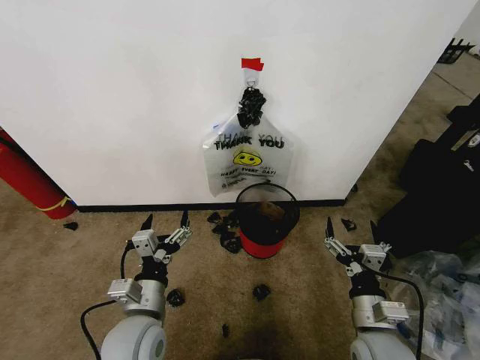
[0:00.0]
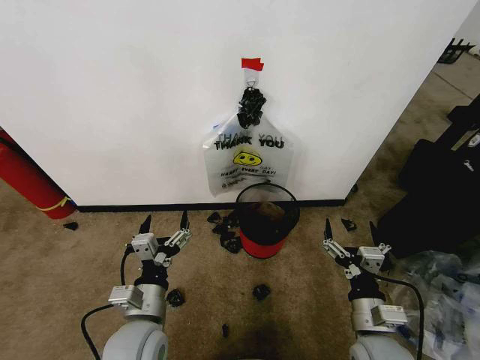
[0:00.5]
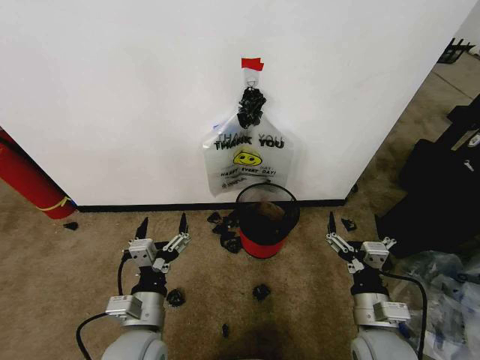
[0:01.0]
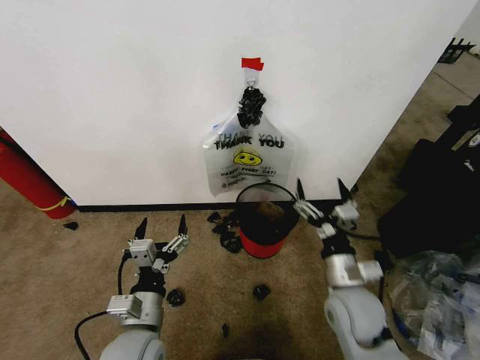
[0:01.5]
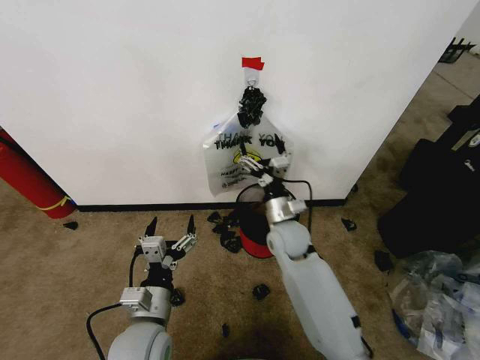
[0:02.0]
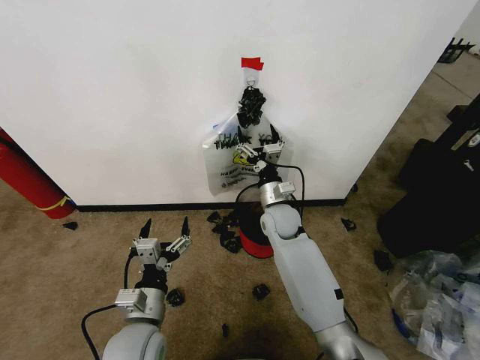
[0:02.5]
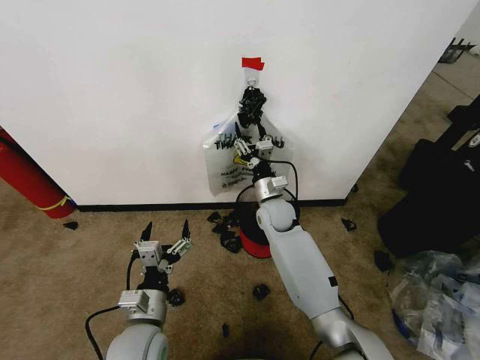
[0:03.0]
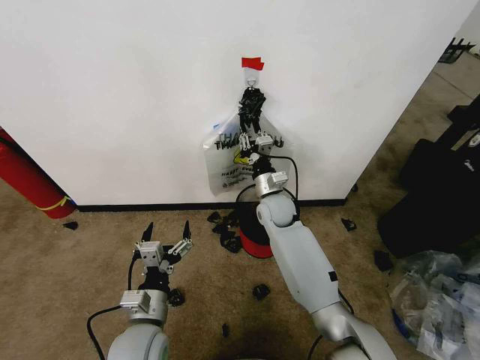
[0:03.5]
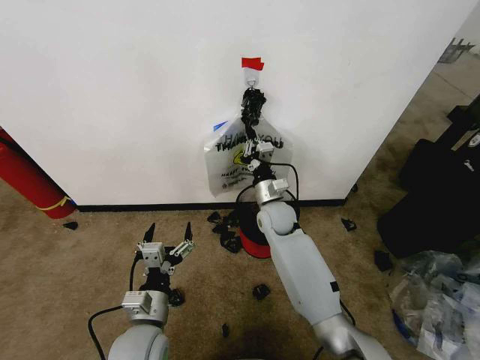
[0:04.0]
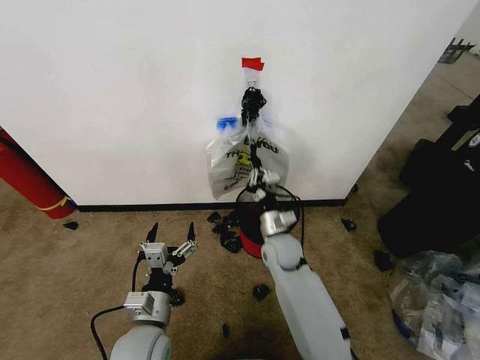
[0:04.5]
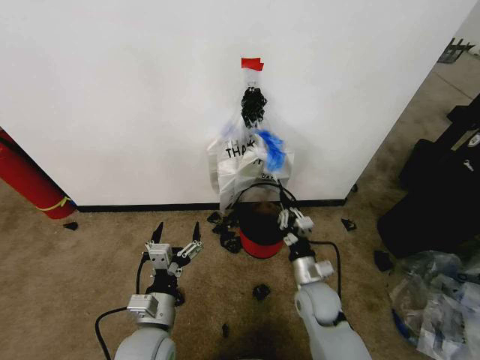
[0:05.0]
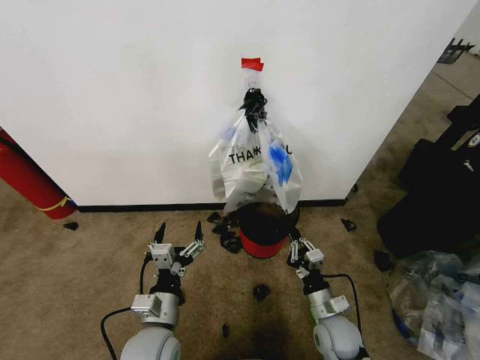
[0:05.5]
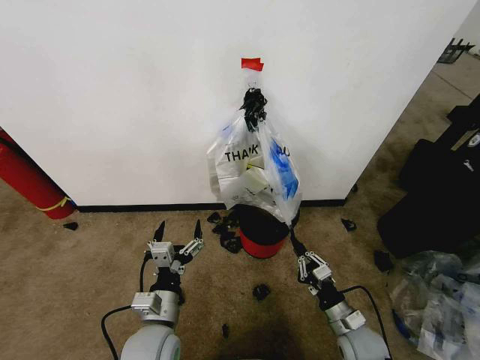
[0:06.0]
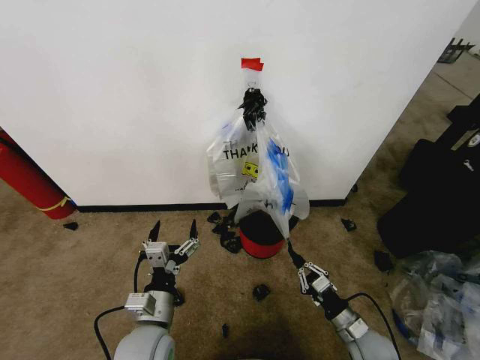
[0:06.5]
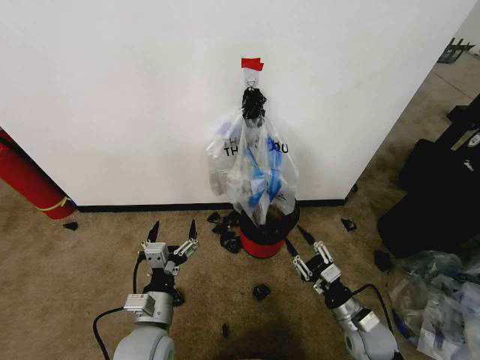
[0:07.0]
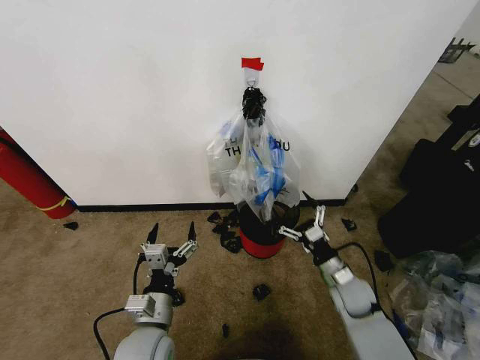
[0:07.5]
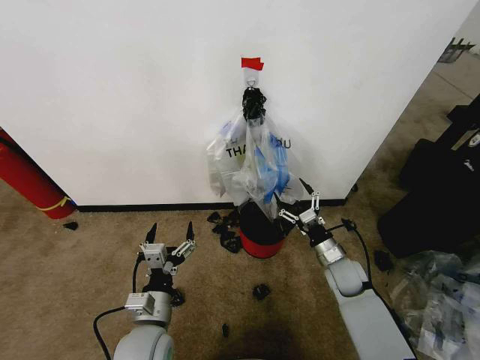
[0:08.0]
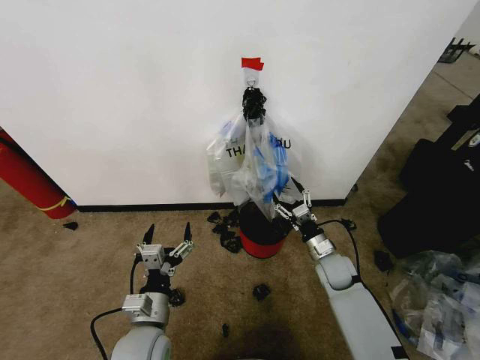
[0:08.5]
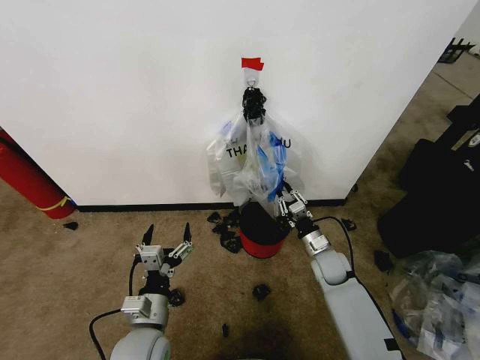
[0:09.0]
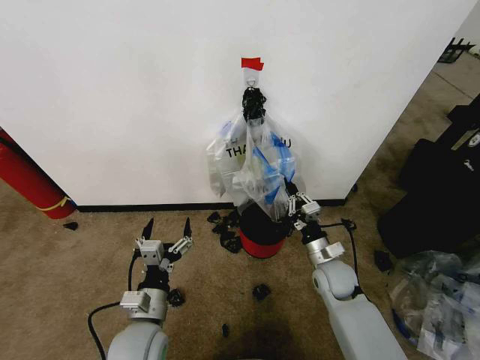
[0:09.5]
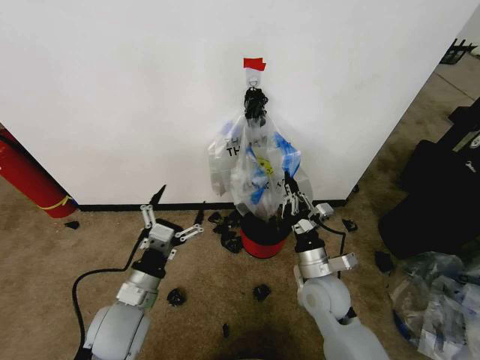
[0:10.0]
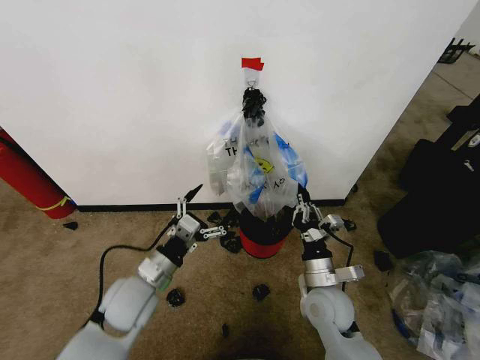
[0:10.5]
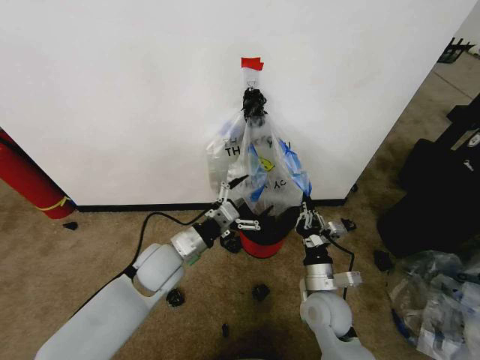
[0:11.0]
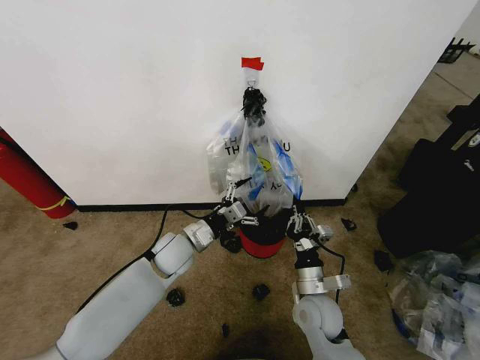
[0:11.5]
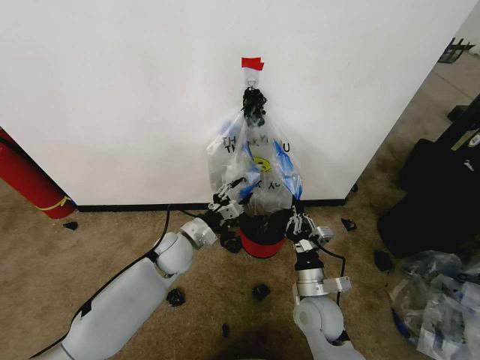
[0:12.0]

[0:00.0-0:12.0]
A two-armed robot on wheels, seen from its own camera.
Task of the whole recording: Pick up the garbage bag from the wall and place it over the trash bin.
0:02.0 to 0:04.0: The right gripper goes about 5 cm forward, and closes its fingers.
0:04.0 to 0:06.0: The right gripper heads backward, to the right and downward, covering some 35 cm.
0:06.0 to 0:08.0: The right gripper heads forward, covering about 15 cm, and opens.
0:08.0 to 0:10.0: The left gripper changes place by about 5 cm. Meanwhile the right gripper travels to the left, backward and upward by some 15 cm, and closes up.
0:10.0 to 0:12.0: The left gripper travels forward by roughly 15 cm, and closes. The right gripper shifts by some 5 cm.

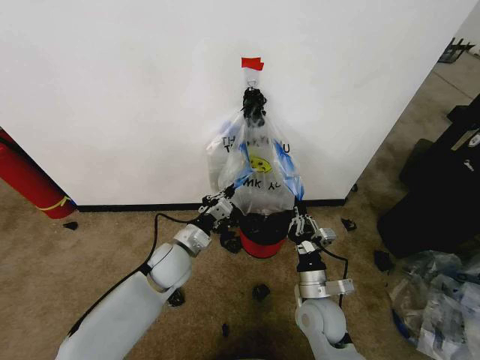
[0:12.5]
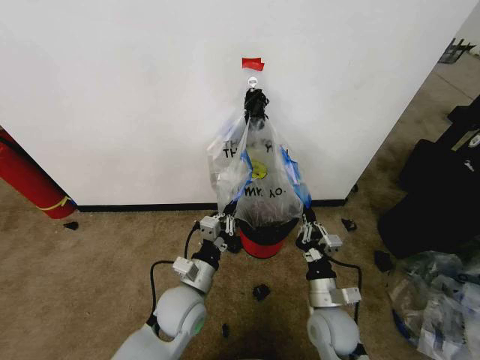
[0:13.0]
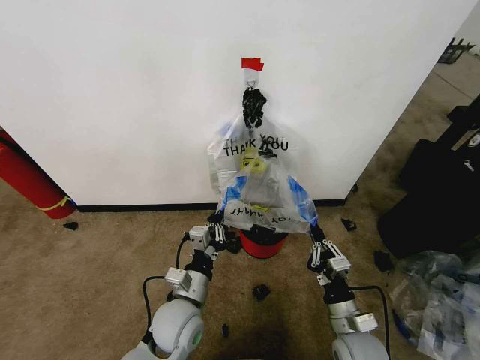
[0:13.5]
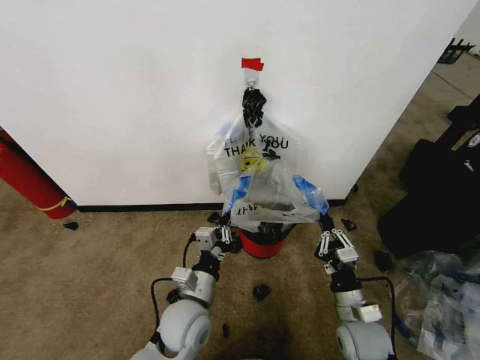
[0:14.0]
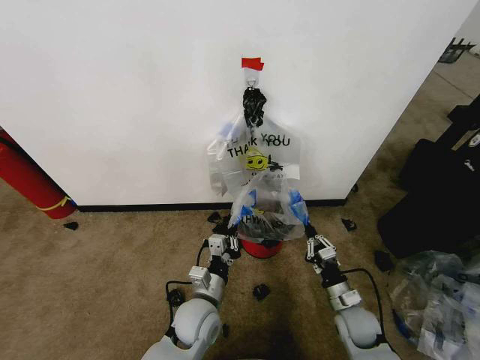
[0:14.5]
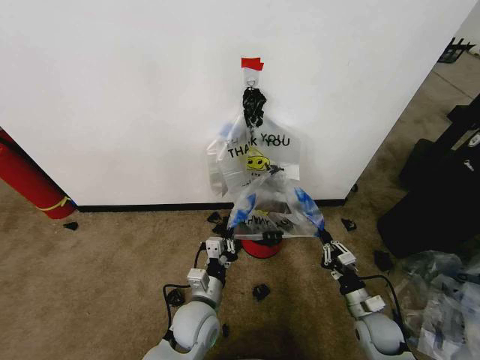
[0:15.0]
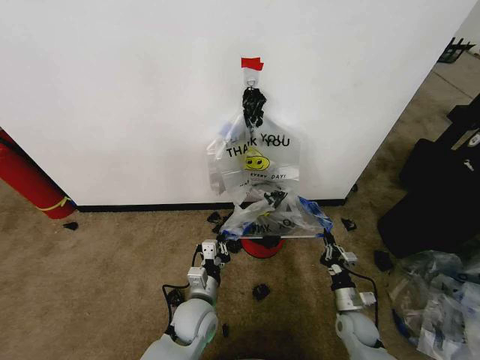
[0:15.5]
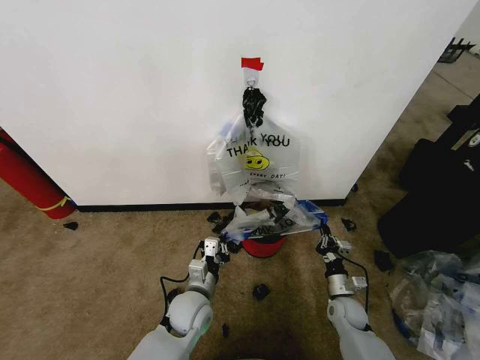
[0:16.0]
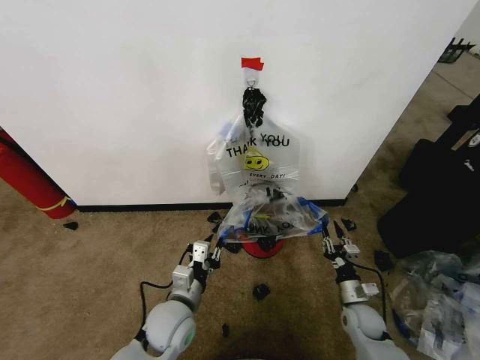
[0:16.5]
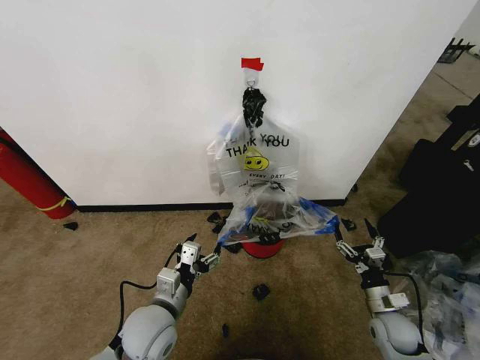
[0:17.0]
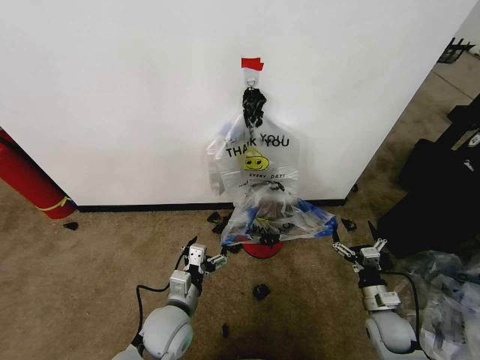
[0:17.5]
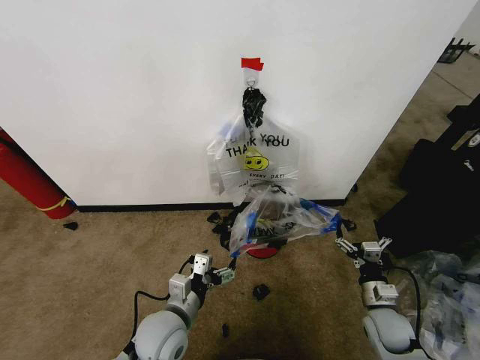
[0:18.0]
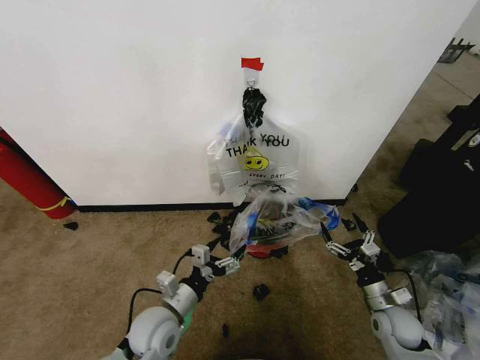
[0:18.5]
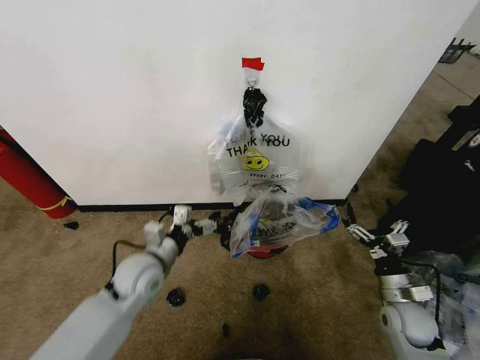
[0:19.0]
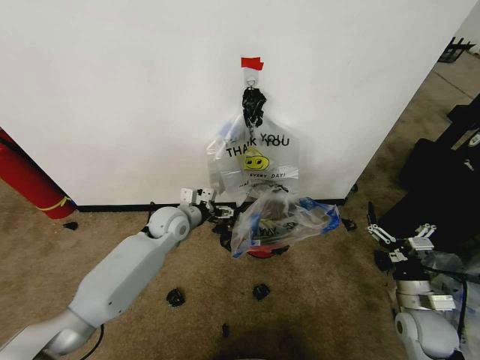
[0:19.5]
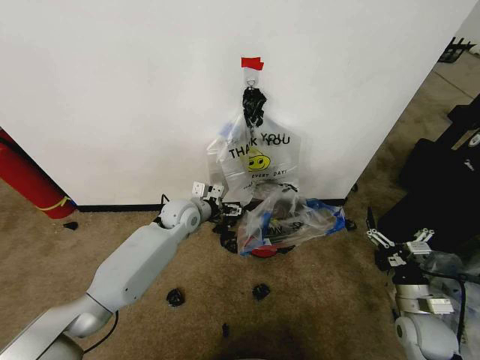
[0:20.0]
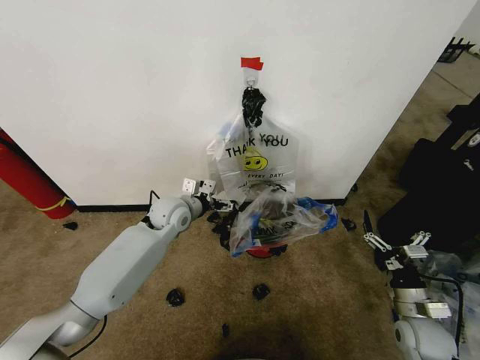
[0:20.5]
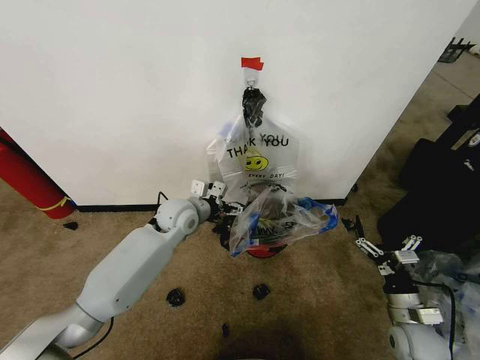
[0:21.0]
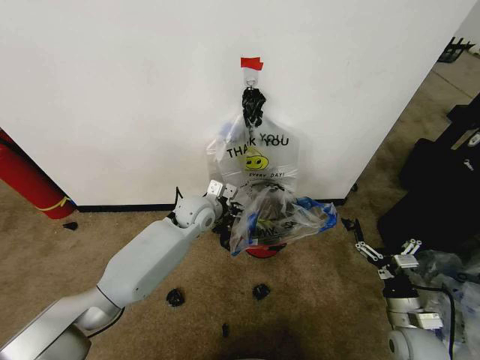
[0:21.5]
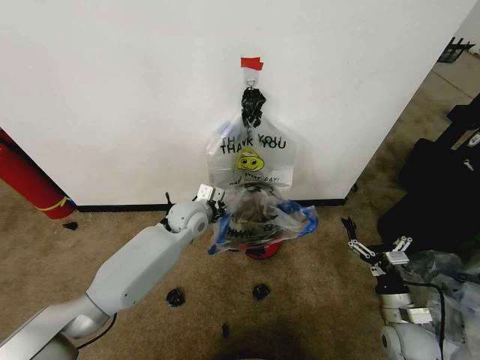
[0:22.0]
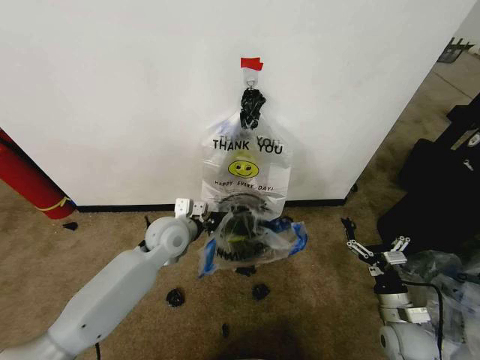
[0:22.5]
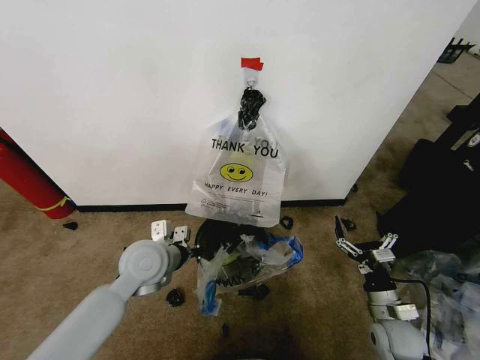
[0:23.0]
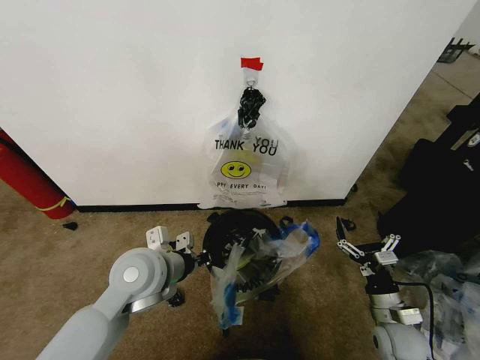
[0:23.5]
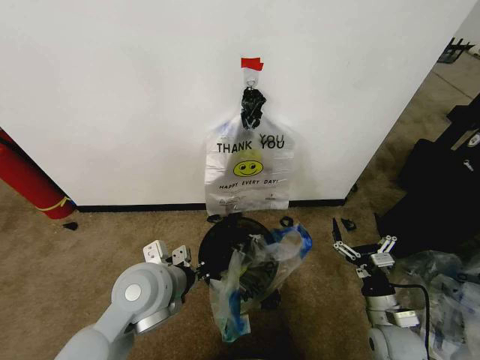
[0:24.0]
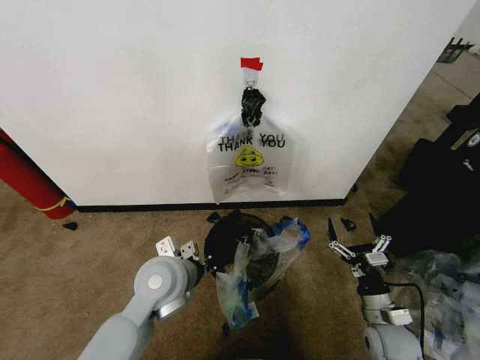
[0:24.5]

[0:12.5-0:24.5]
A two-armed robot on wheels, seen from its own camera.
Task of the whole recording: Pick up the garbage bag from the wall and place it over the trash bin.
0:12.5 to 0:14.5: The left gripper is displaced backward, to the right and downward by about 15 cm, while the right gripper is displaced to the right and downward by about 15 cm.
0:14.5 to 0:16.5: The right gripper ends up approximately 5 cm from where it was; the left gripper moves approximately 5 cm.
0:16.5 to 0:18.5: The right gripper moves upward, about 5 cm, and opens its fingers, while the left gripper opens up.
0:18.5 to 0:20.5: The left gripper moves forward and upward, some 25 cm. Meanwhile the right gripper moves about 5 cm.
0:20.5 to 0:22.5: The left gripper heads backward, covering roughly 5 cm, and closes its fingers.
0:22.5 to 0:24.5: The left gripper travels backward by approximately 10 cm.

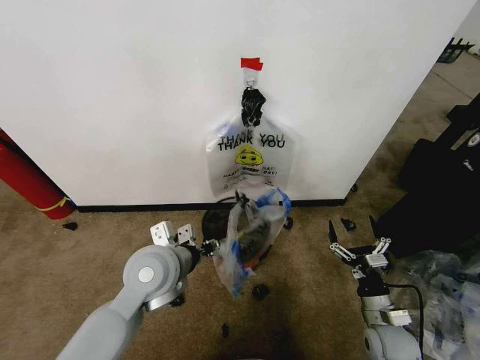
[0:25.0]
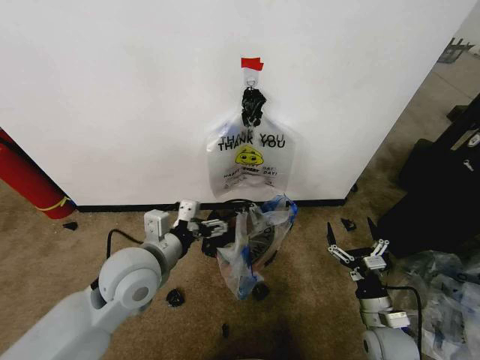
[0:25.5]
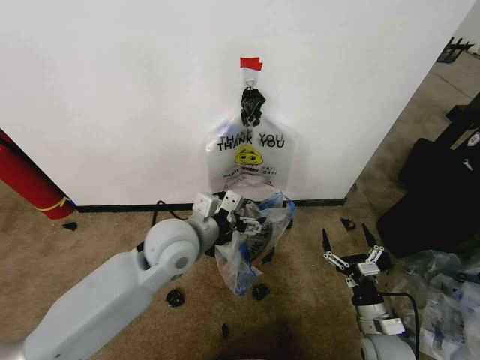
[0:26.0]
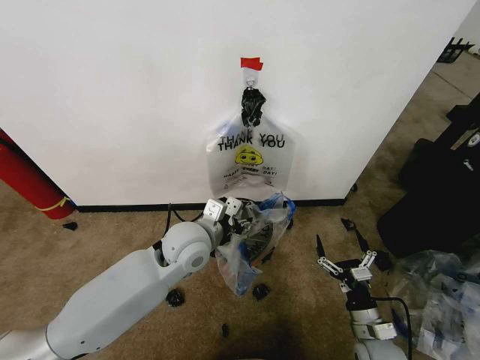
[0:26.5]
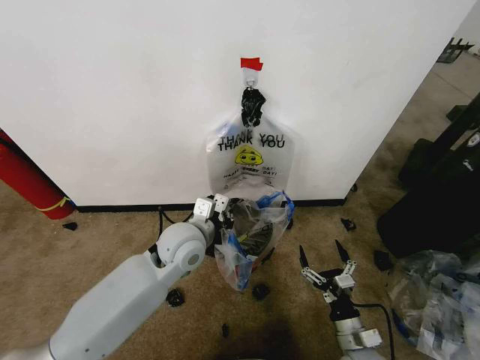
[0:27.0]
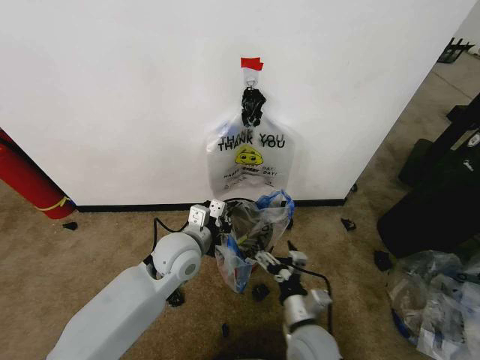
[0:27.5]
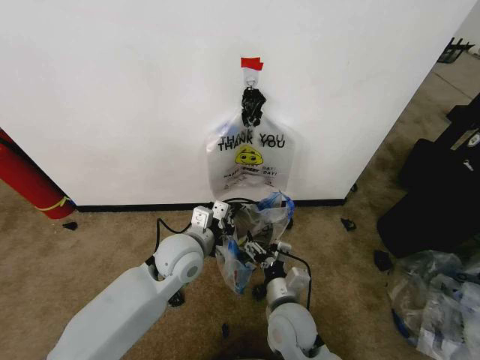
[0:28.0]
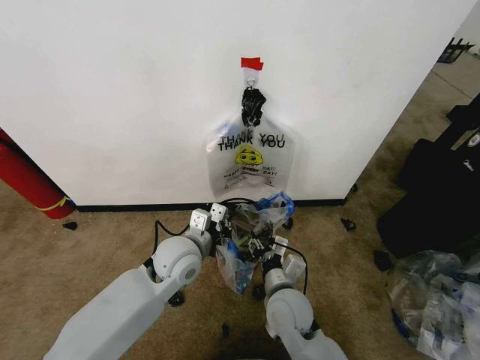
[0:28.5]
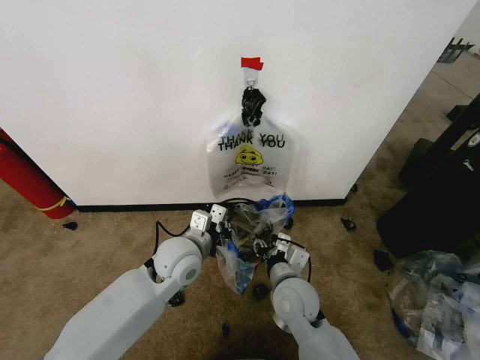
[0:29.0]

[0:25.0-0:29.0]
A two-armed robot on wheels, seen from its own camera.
Task of the whole recording: Pick up the garbage bag from the wall and place it over the trash bin.
0:25.0 to 0:27.0: The left gripper goes roughly 5 cm forward, and closes its fingers. The right gripper is displaced to the left by approximately 5 cm.
0:27.0 to 0:29.0: The right gripper travels to the left, upward and forward by some 20 cm, and closes its fingers.
